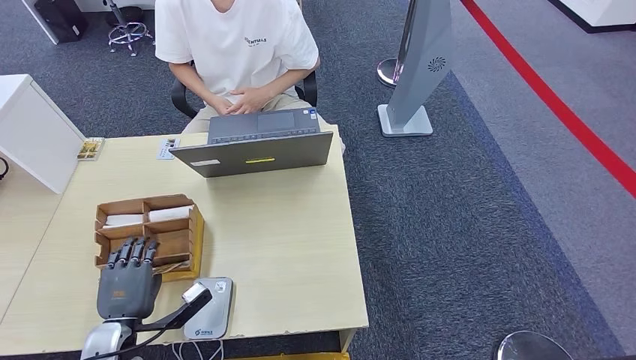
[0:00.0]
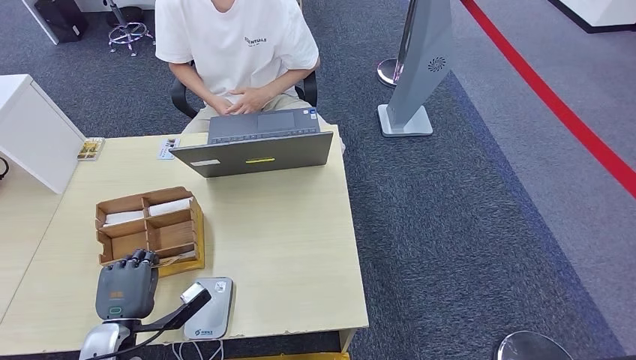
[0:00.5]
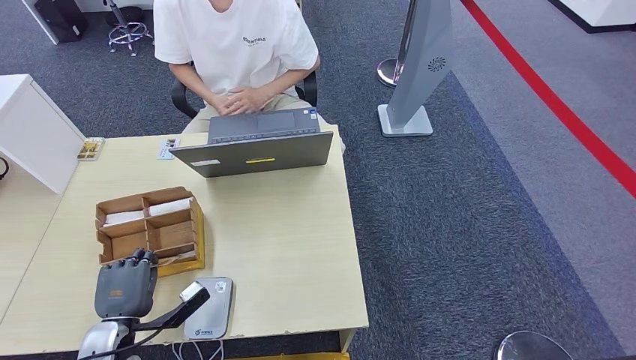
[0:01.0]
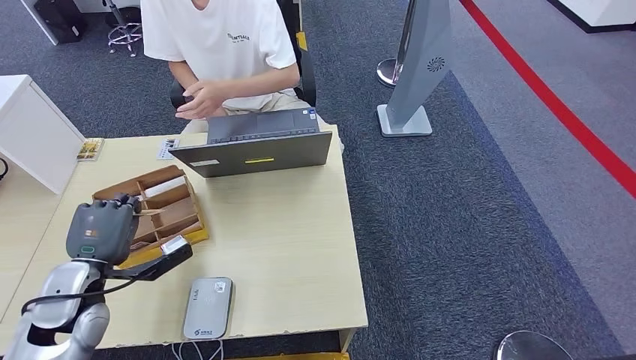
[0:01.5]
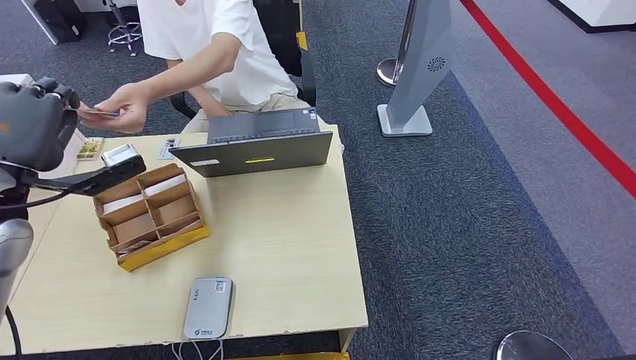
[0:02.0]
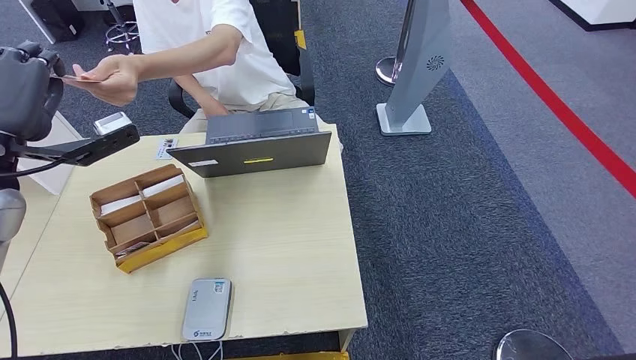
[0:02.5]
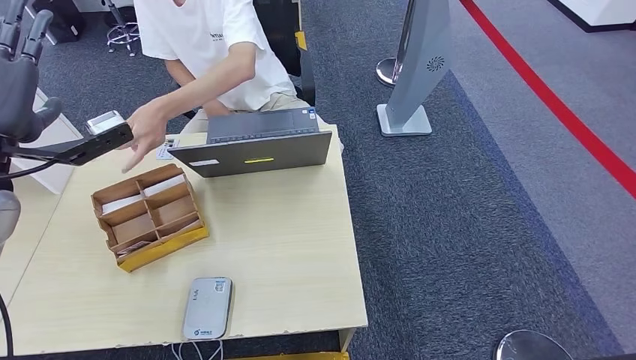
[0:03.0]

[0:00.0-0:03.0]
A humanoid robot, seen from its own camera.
Step, 0:01.0 to 0:03.0: Hand the room key to the person.
0:00.0 to 0:01.5: The left hand heads upward and forward, covering some 10 cm.
0:01.5 to 0:03.0: The left hand is displaced upward by approximately 20 cm.

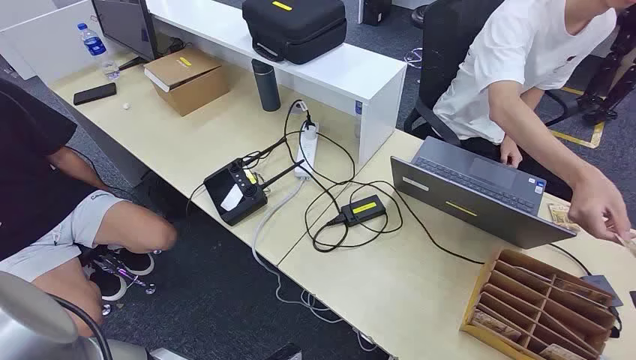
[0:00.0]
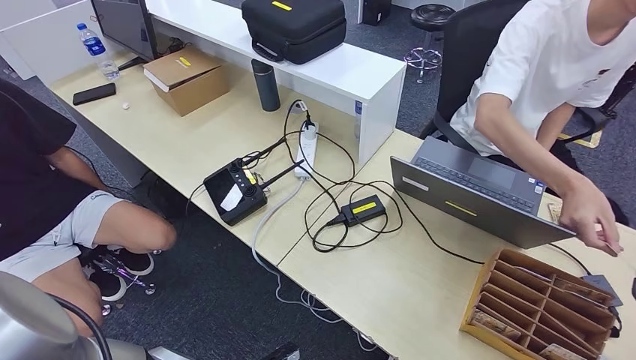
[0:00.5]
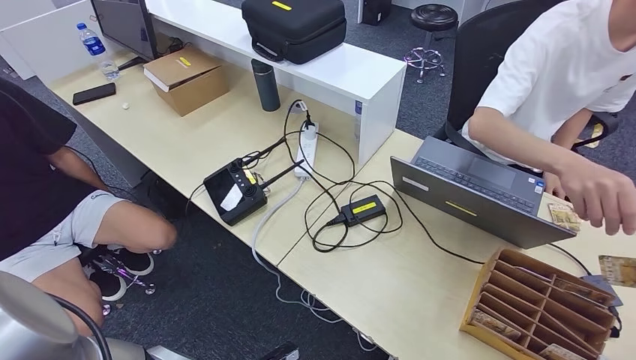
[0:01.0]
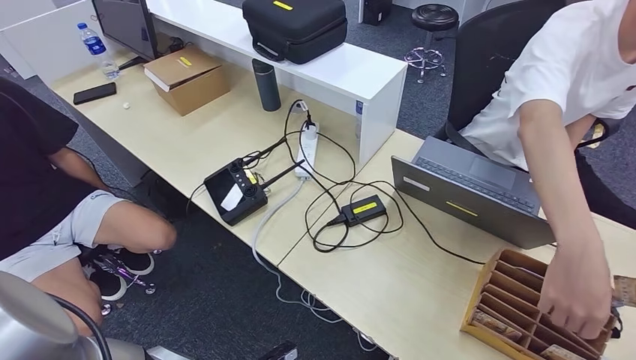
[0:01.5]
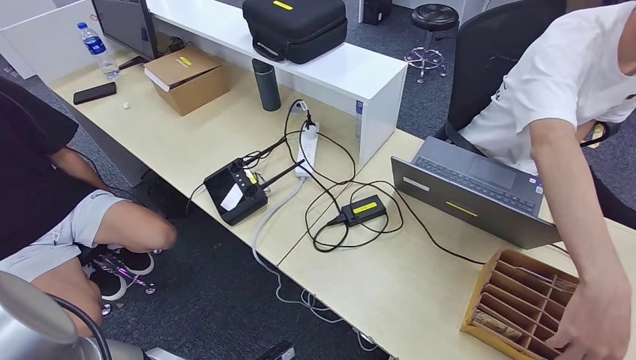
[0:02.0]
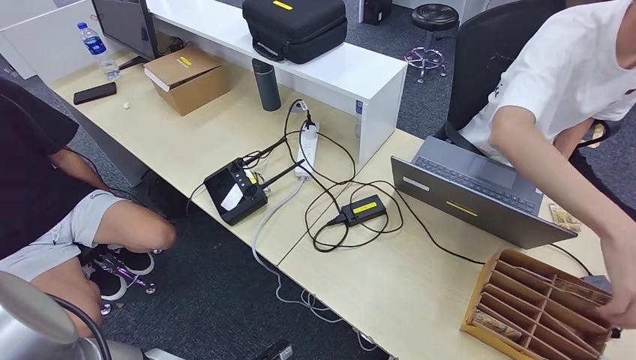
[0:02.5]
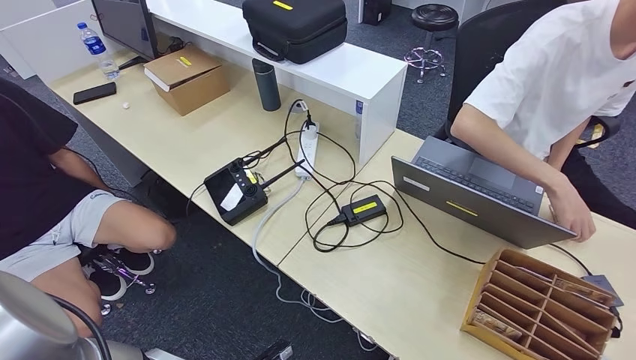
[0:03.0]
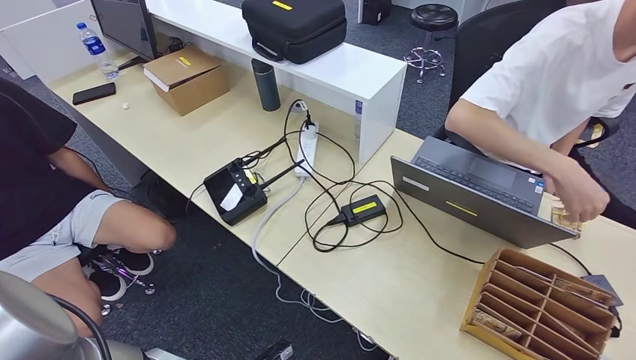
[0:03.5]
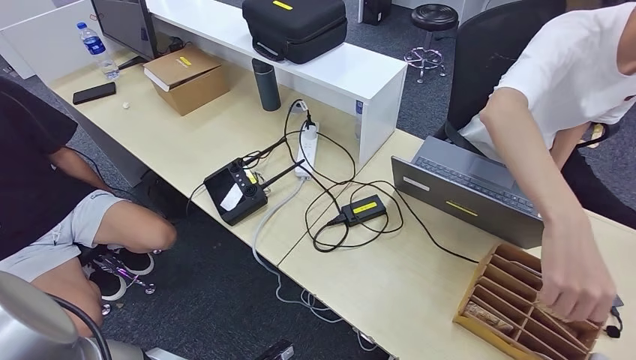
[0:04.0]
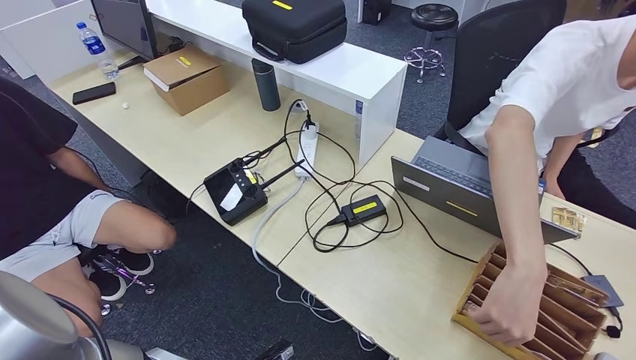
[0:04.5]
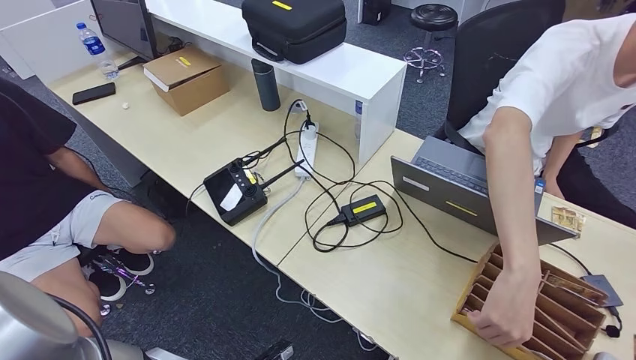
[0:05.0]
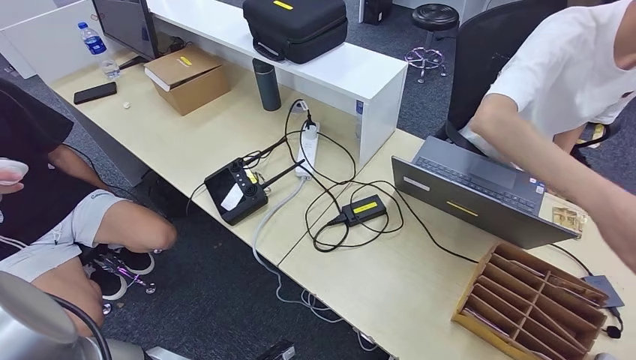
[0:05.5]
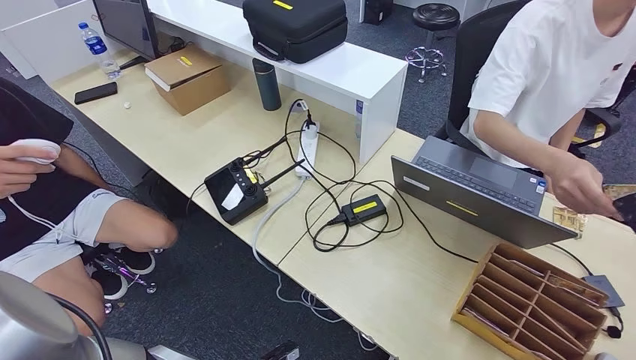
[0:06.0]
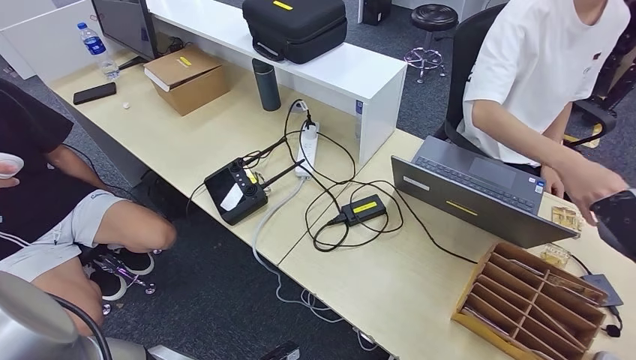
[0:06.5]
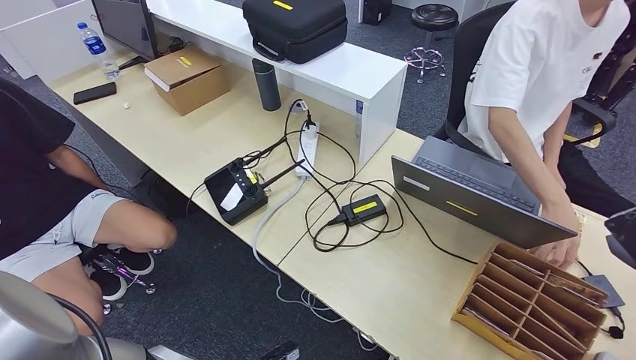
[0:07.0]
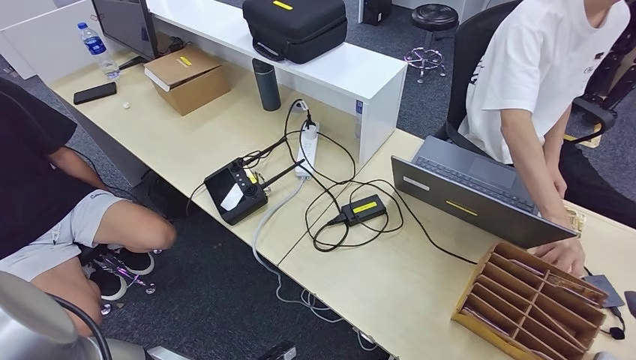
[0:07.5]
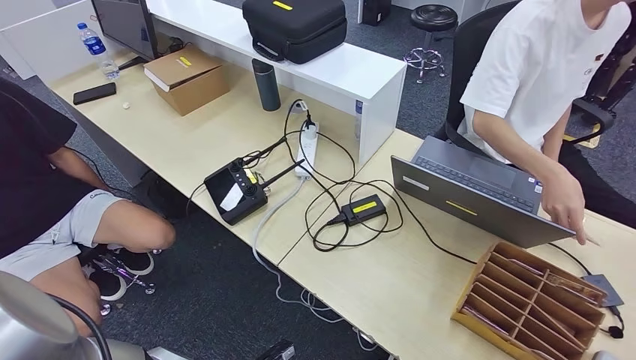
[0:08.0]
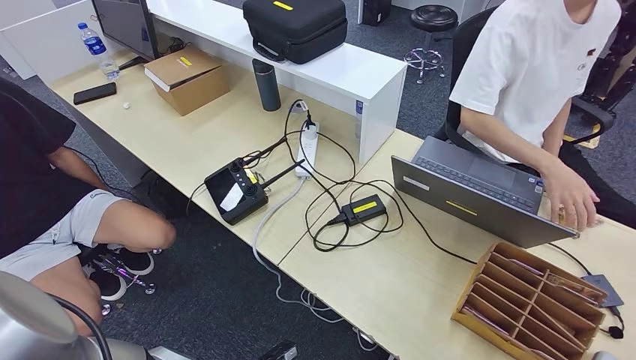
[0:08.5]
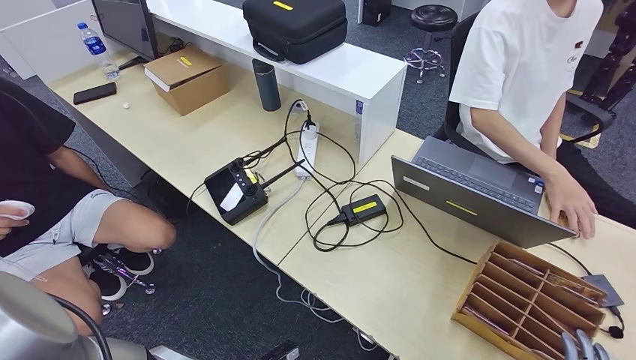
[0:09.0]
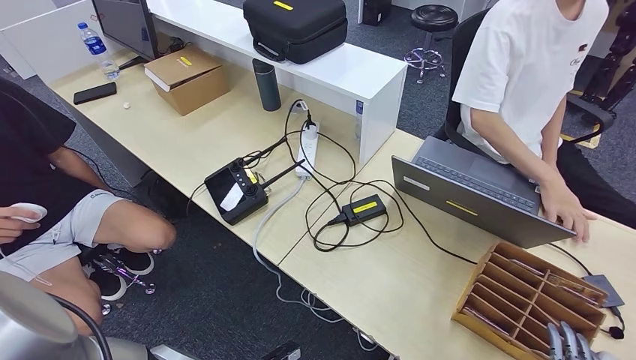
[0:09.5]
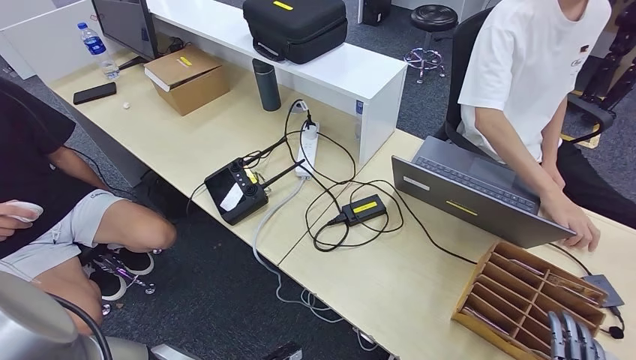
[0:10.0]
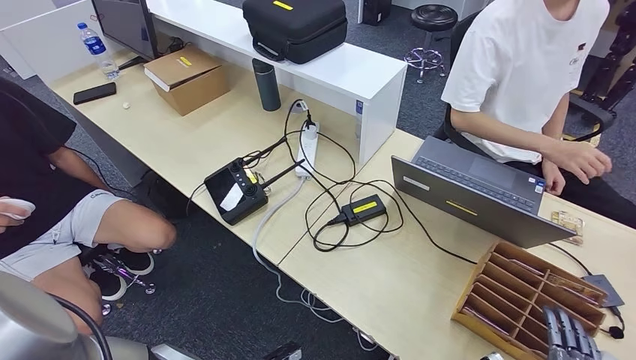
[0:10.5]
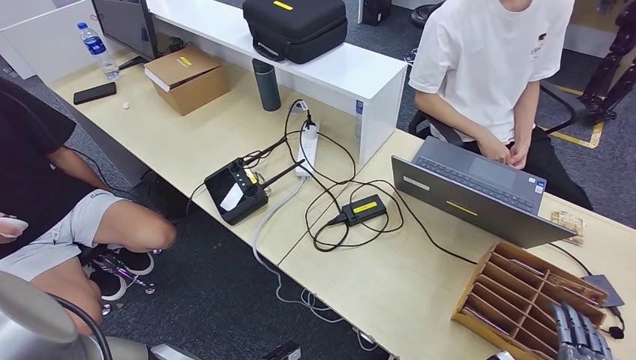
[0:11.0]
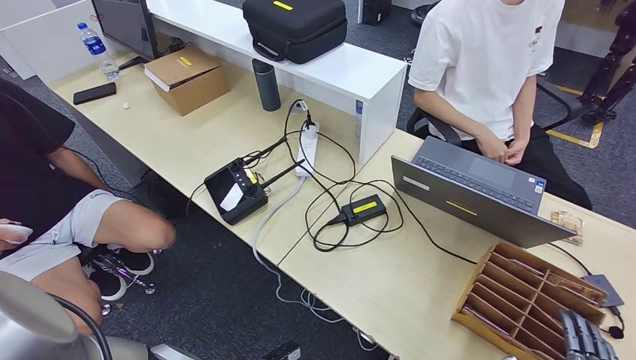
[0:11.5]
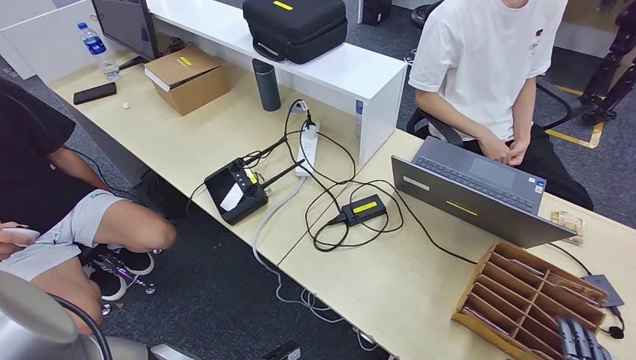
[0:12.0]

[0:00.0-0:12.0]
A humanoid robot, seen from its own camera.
Step, 0:00.0 to 0:01.5: Take the ID card from the person's hand.
Step, 0:02.0 to 0:03.5: Place the ID card on the card reader.
Step, 0:04.5 to 0:06.0: Hand the ID card to the person.
0:02.0 to 0:04.0: The right hand goes about 15 cm downward, to the left and backward.
0:04.0 to 0:06.0: The right hand goes some 30 cm upward, forward and to the left.
0:06.0 to 0:08.0: The right hand travels backward, downward and to the right by approximately 25 cm.
0:08.0 to 0:10.0: The right hand is displaced downward and to the left by some 15 cm.
0:10.0 to 0:12.0: The hands stay close to where they were, moving slightly.

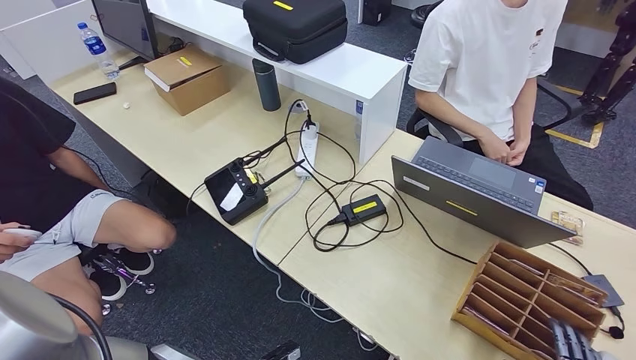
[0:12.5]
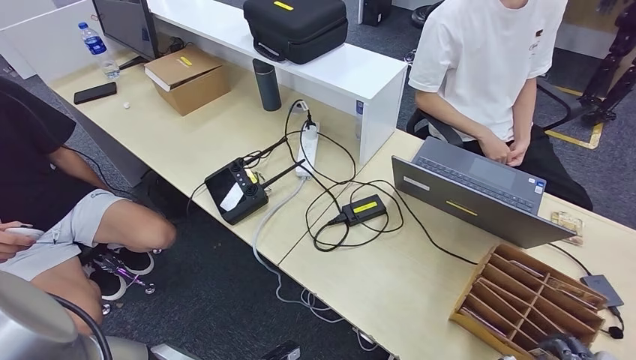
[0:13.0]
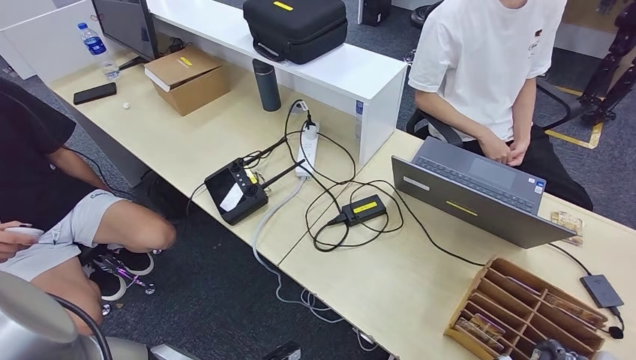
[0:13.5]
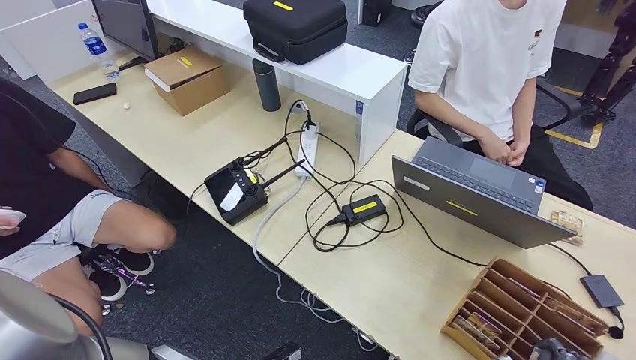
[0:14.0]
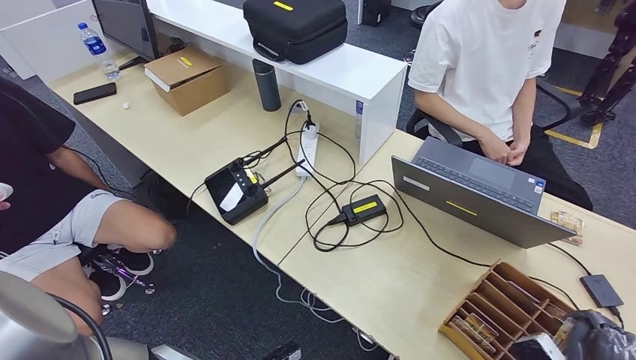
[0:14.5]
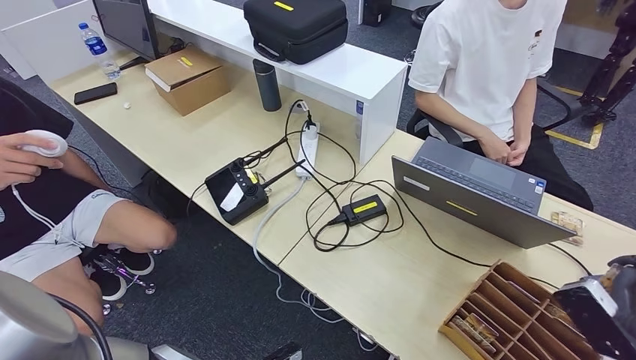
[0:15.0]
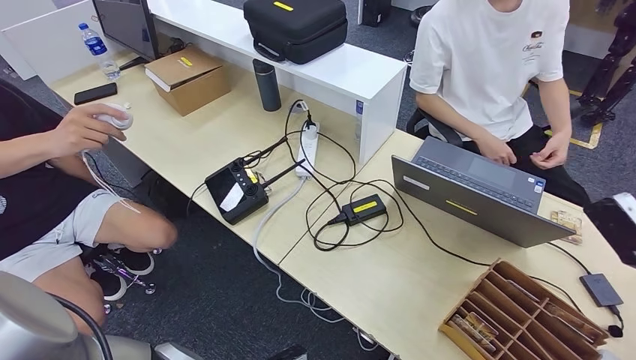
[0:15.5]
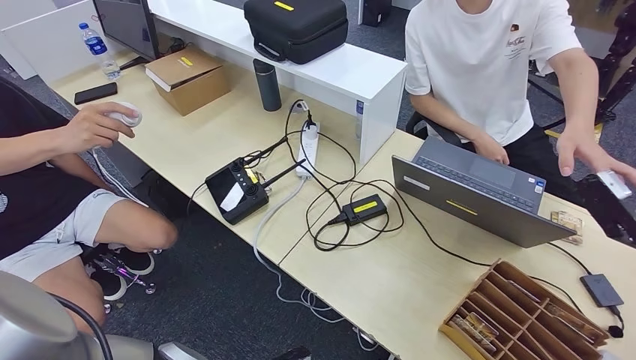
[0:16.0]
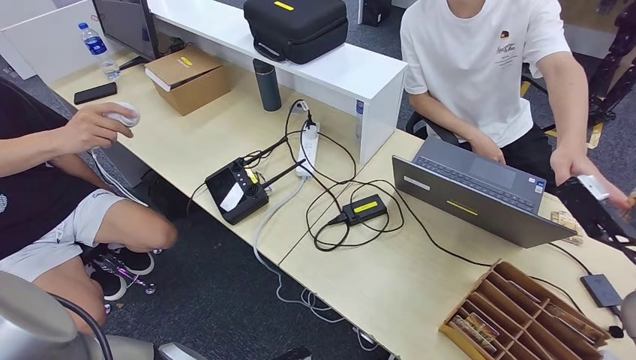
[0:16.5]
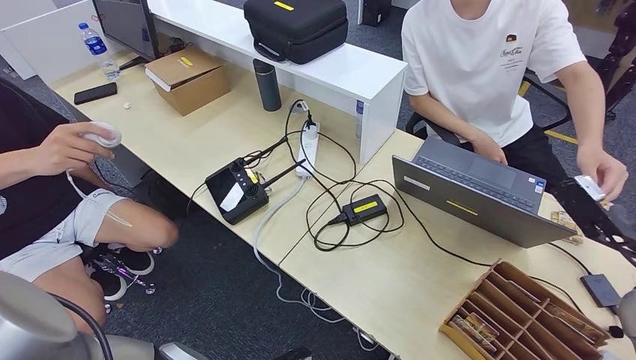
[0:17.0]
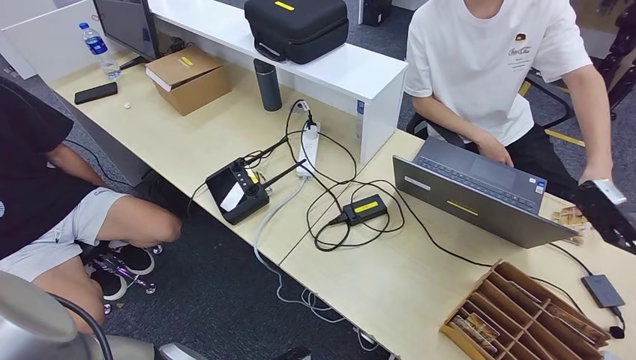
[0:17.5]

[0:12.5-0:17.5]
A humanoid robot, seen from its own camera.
0:12.5 to 0:15.0: The right hand heads upward and forward, covering some 15 cm.
0:15.0 to 0:17.5: The right hand shifts approximately 10 cm forward and upward.
